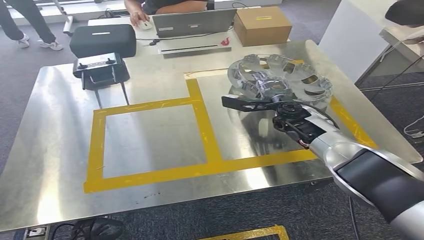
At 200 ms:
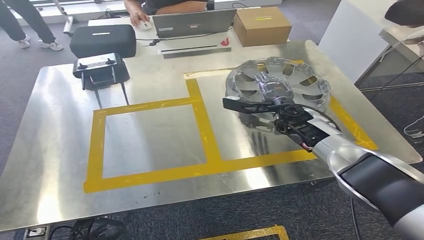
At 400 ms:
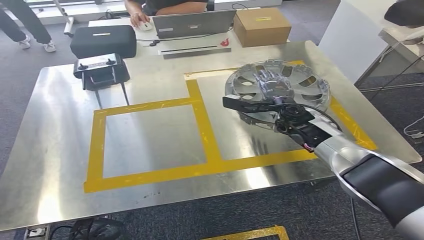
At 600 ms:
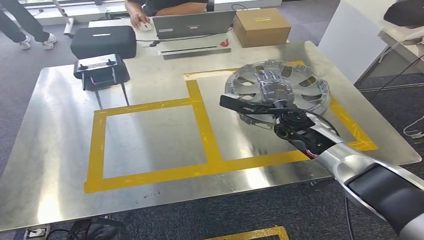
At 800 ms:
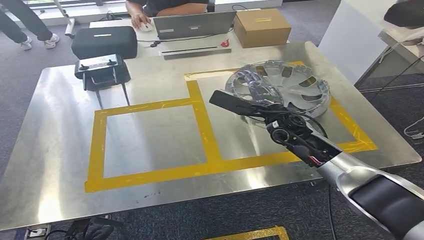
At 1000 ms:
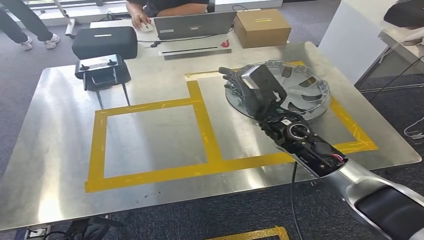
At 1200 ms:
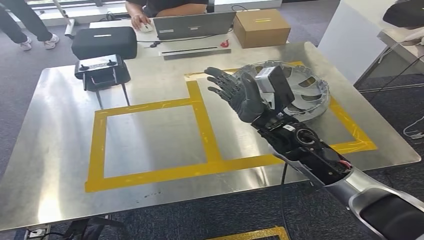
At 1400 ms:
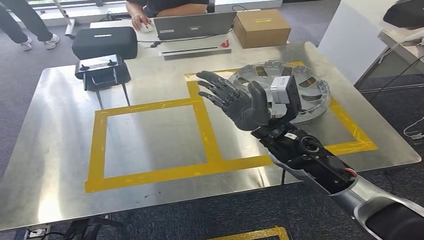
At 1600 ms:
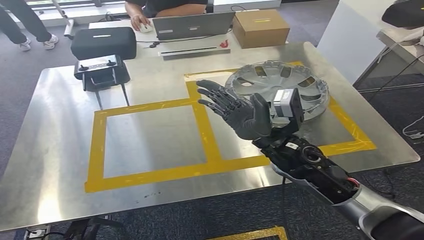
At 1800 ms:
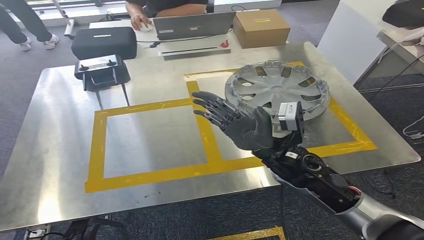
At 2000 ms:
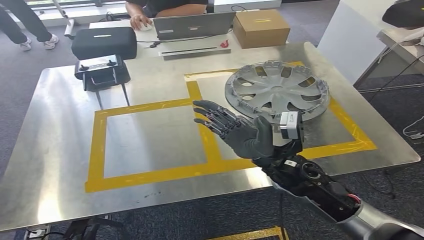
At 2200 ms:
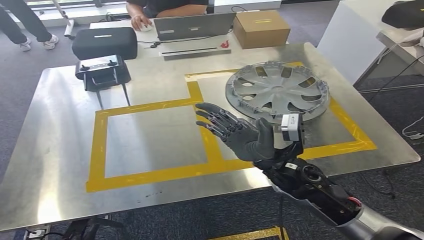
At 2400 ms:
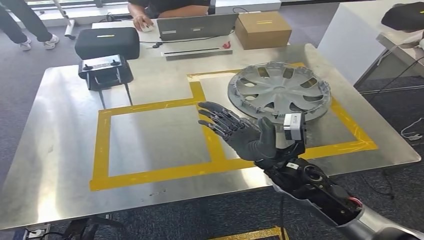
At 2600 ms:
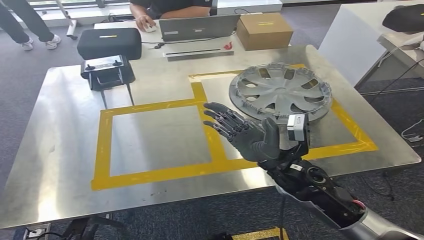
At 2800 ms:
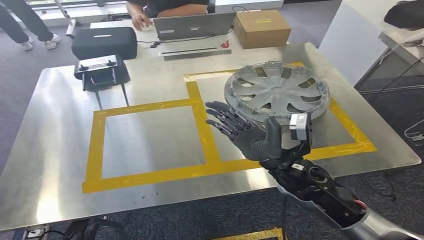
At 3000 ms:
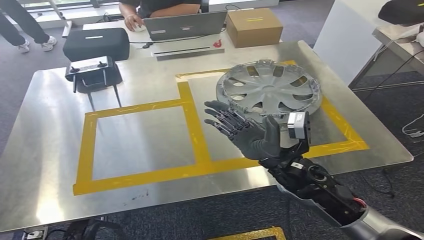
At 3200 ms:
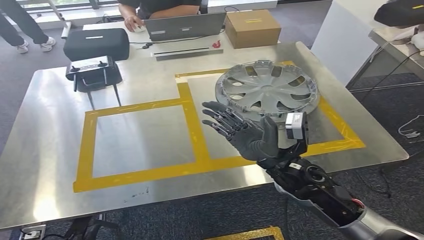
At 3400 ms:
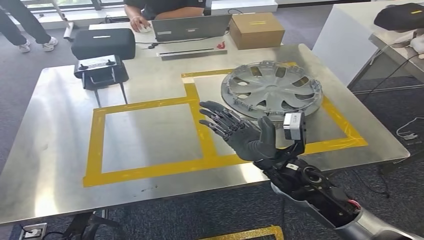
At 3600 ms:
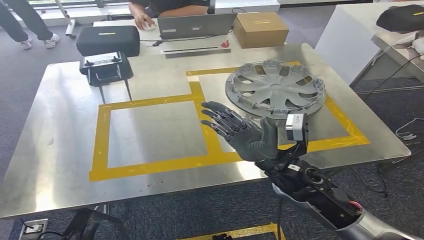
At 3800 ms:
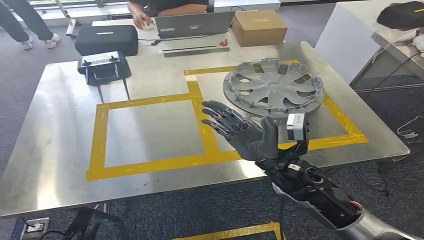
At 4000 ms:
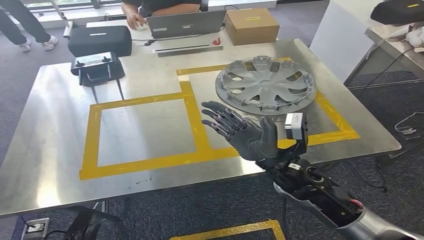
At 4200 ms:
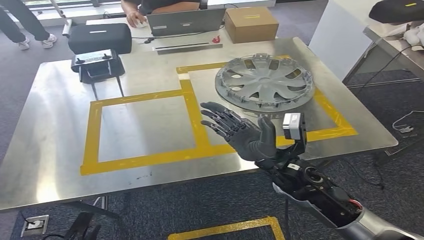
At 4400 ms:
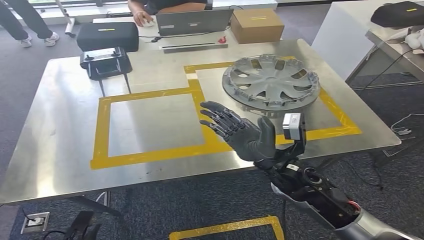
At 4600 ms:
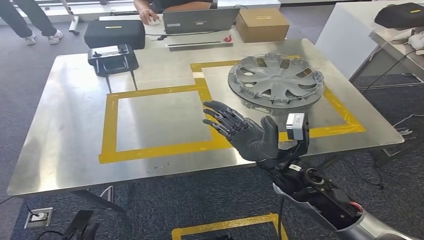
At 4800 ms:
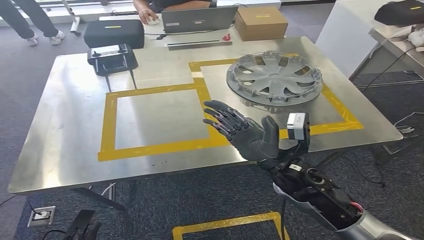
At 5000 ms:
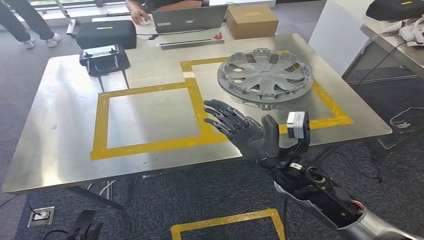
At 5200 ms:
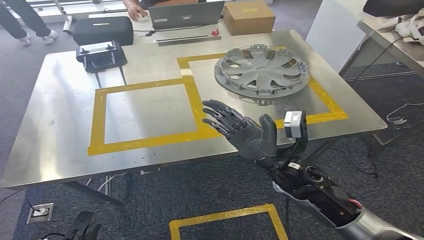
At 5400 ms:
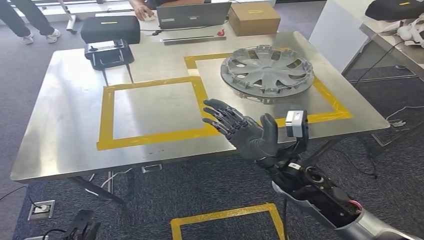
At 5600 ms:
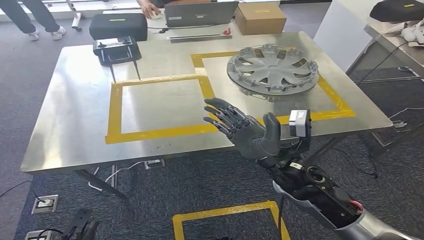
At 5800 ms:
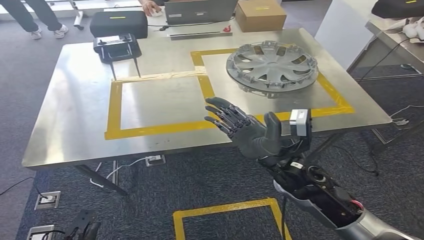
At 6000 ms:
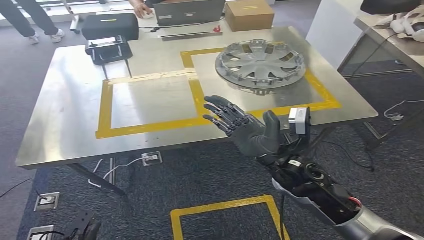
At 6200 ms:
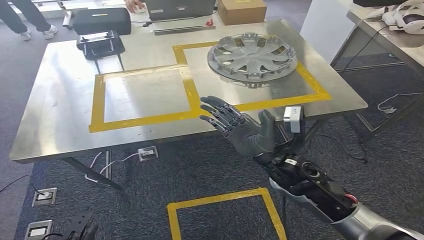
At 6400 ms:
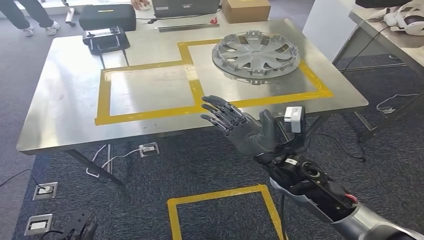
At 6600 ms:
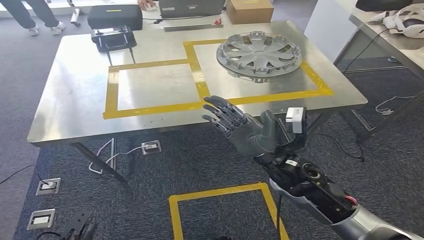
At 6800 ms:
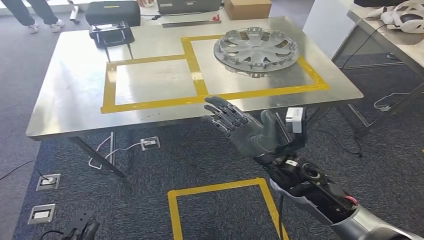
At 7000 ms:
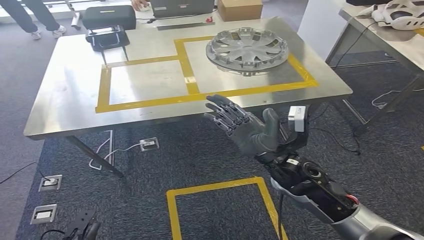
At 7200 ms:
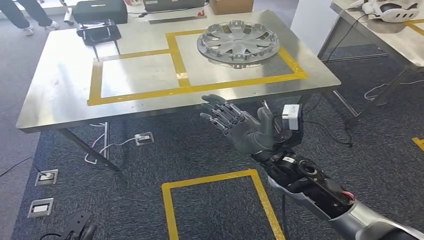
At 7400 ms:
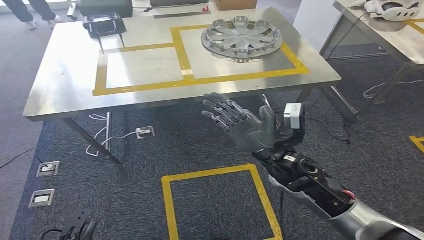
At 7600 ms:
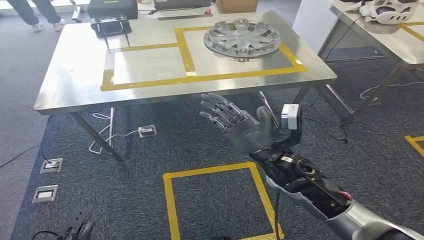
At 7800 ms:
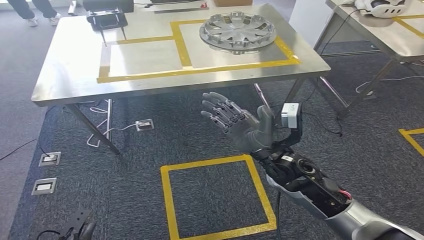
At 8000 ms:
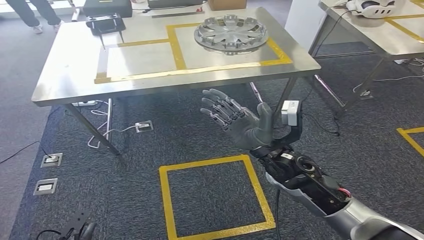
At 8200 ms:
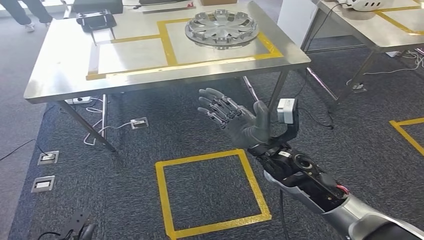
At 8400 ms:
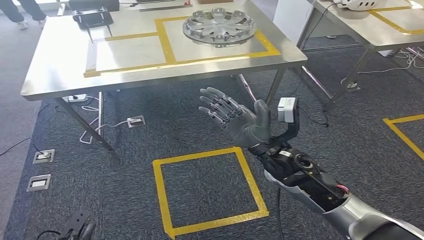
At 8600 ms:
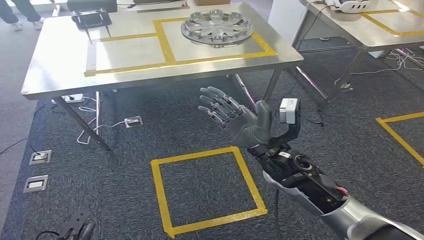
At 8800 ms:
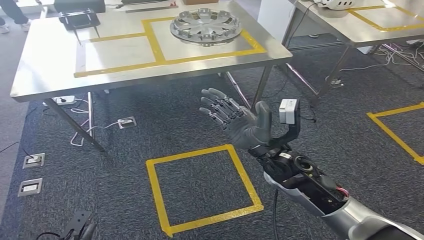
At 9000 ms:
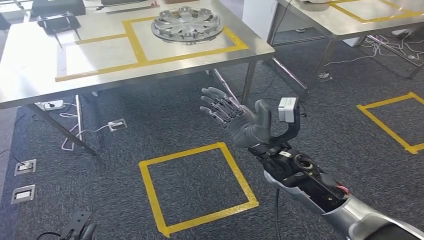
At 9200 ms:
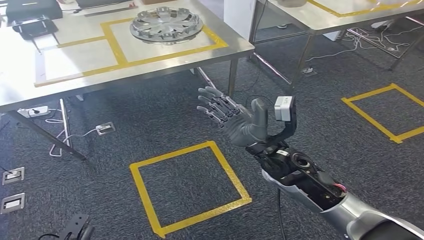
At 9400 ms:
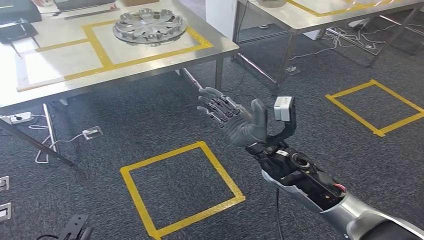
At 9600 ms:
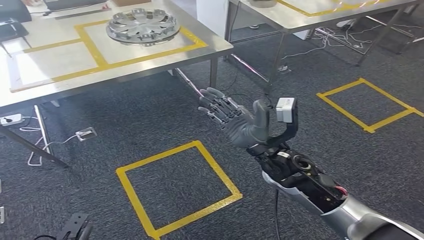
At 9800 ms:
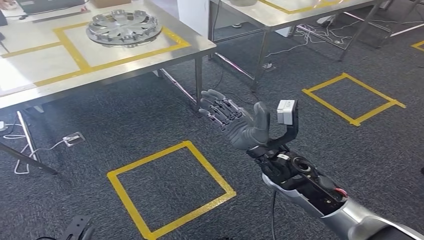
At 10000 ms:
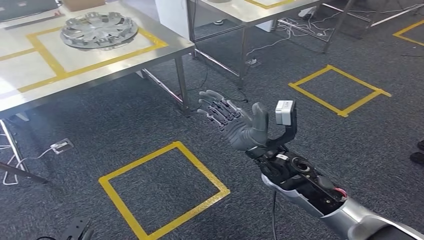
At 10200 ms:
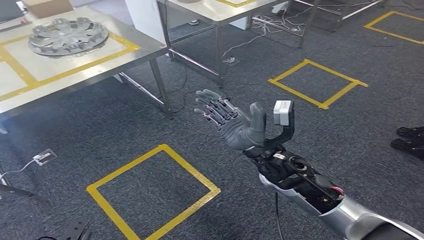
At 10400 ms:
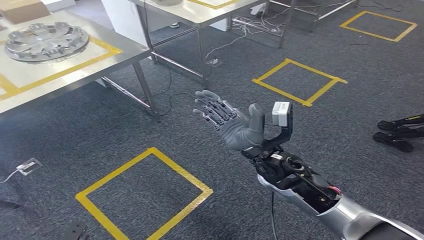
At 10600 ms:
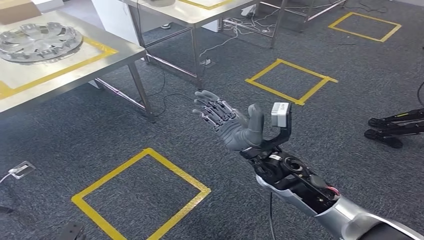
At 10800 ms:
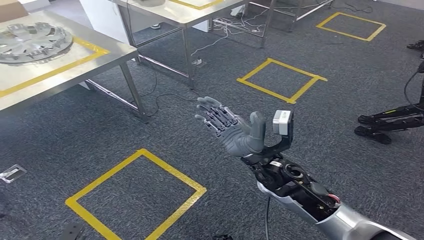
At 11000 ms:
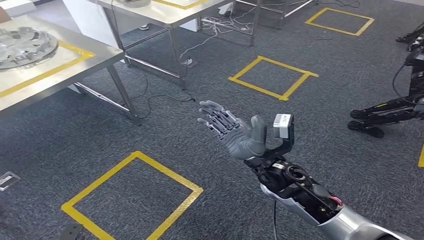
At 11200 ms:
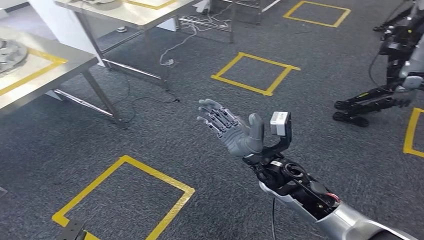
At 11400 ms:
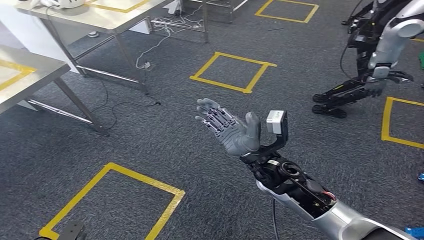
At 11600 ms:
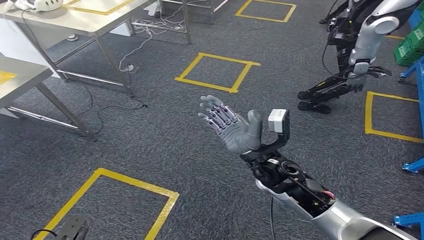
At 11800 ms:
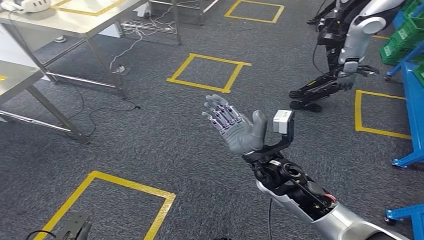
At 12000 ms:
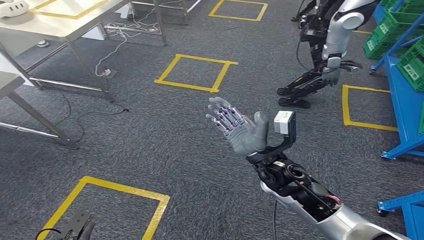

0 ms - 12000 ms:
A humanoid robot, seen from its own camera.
Step, 0 ms - 2400 ms: Insert the small parts into the corresponding holes on the workbench.

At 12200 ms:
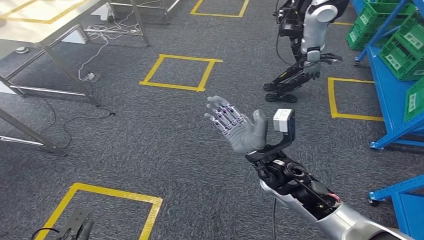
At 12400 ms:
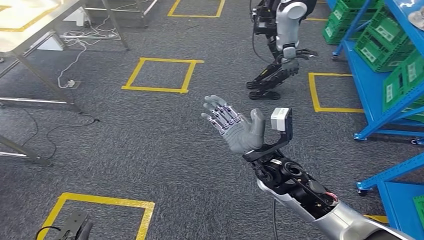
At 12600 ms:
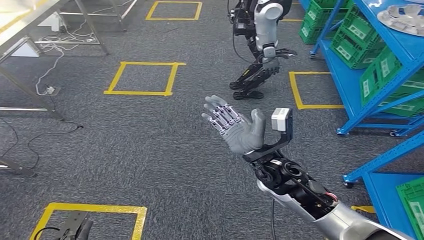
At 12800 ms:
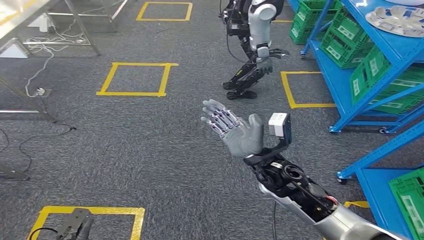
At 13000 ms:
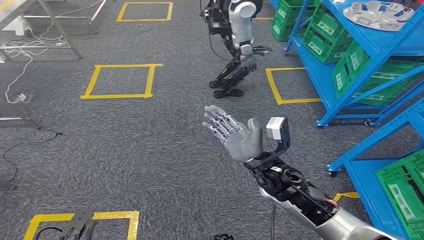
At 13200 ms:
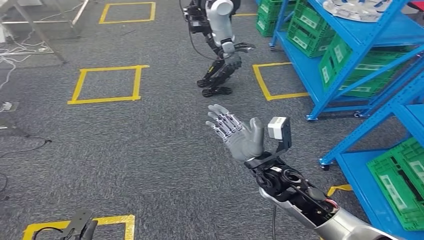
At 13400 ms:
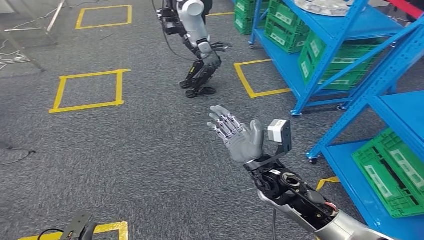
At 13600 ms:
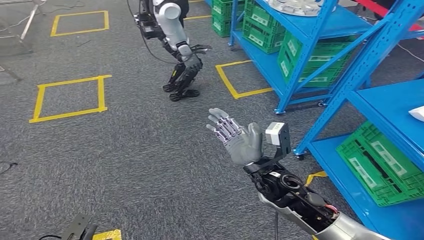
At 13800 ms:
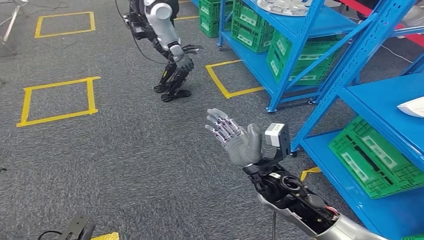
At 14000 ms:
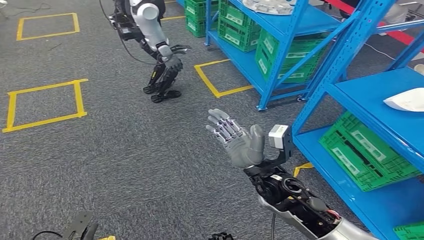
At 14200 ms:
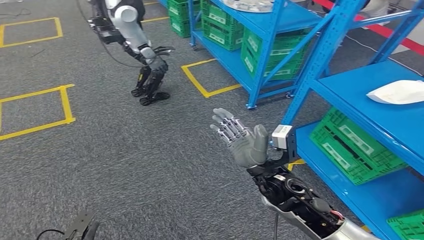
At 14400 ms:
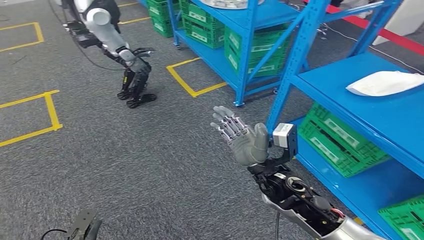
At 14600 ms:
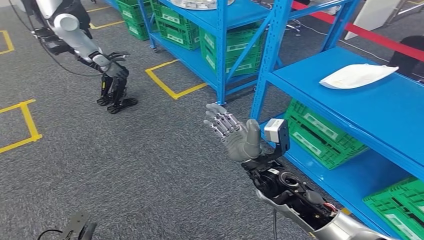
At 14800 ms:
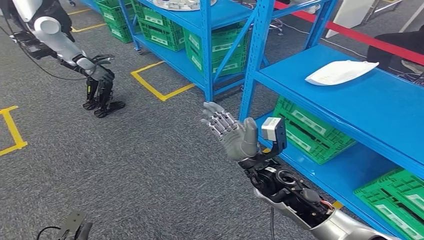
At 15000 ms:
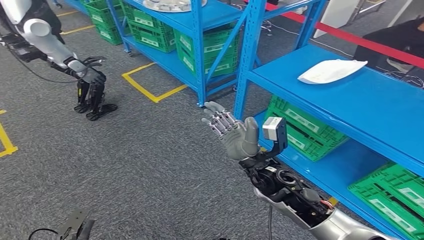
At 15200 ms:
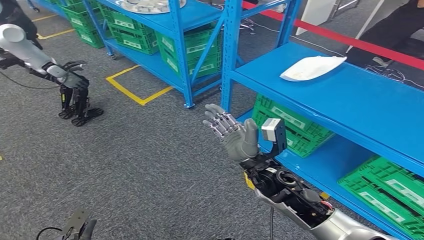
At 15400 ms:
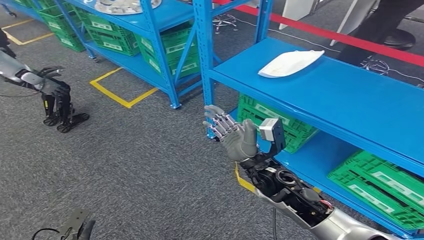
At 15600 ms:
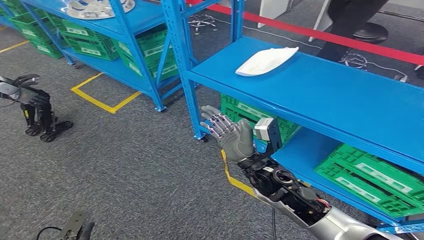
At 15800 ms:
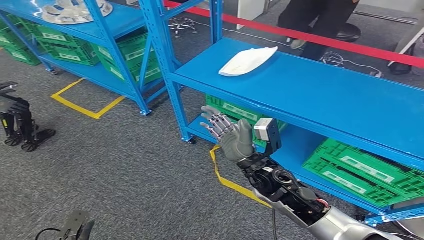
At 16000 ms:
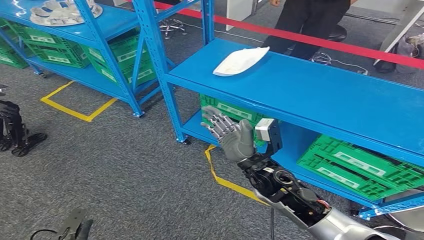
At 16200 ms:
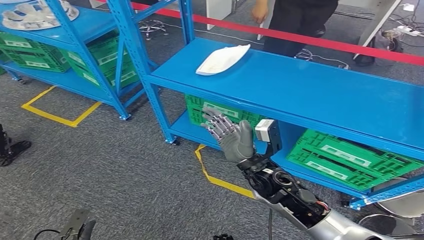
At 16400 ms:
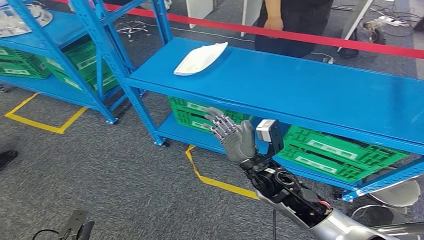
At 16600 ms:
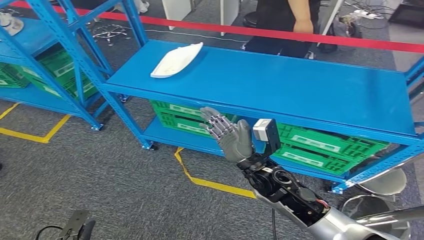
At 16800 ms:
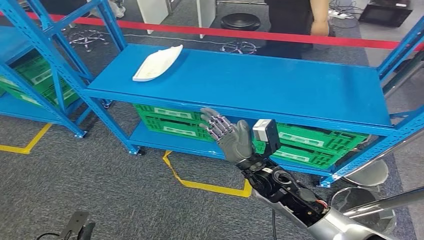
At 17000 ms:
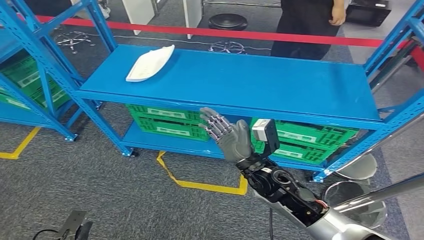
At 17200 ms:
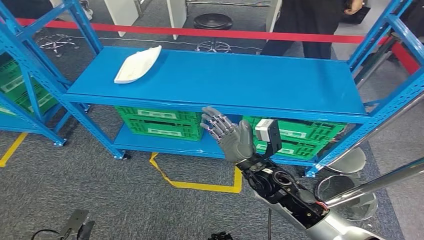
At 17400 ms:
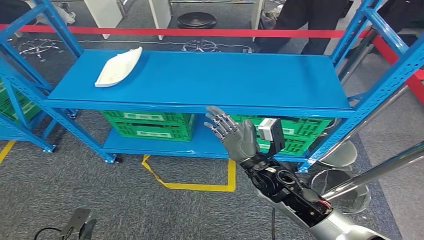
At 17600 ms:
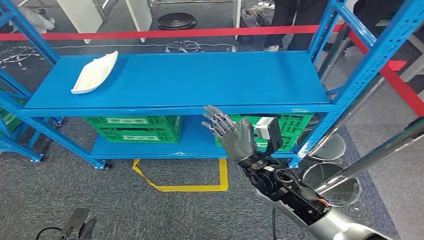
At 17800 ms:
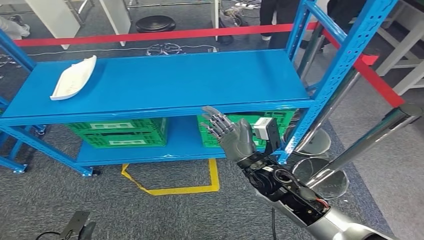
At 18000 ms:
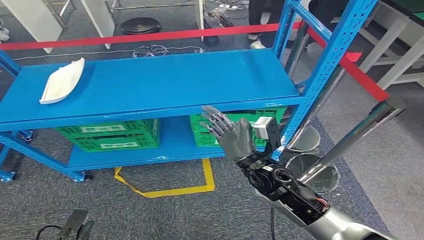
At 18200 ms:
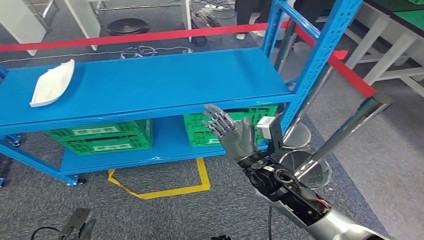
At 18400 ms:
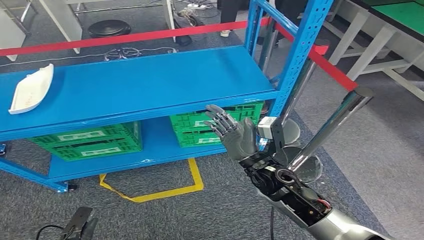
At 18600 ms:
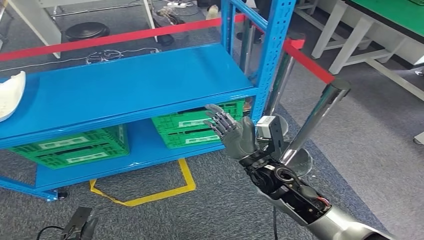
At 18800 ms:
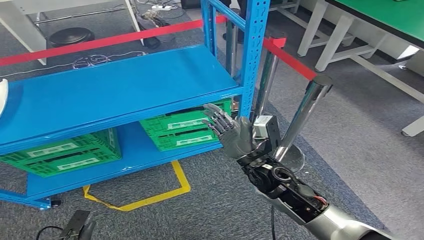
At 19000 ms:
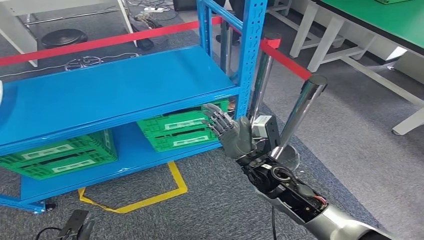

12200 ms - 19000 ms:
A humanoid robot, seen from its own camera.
Step, 12200 ms - 19000 ms: Move to the initial position at the workbench.
